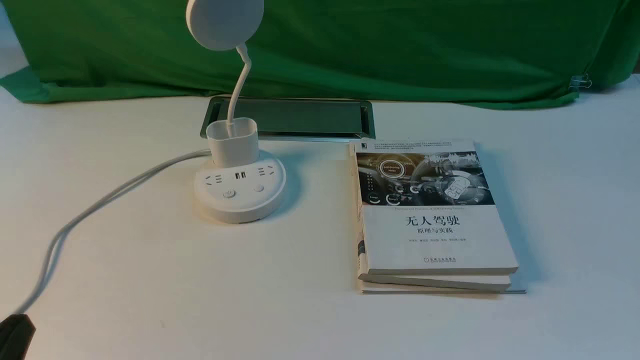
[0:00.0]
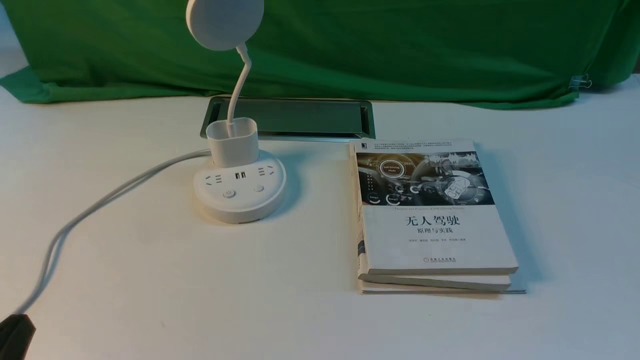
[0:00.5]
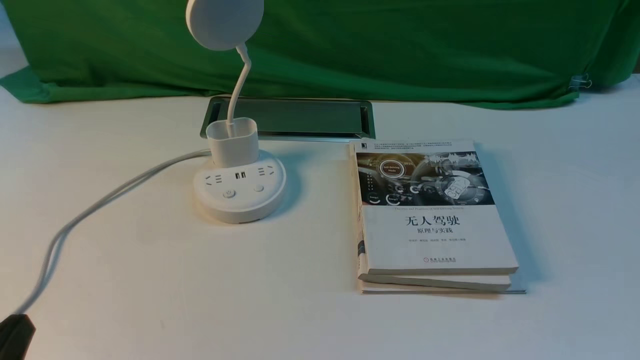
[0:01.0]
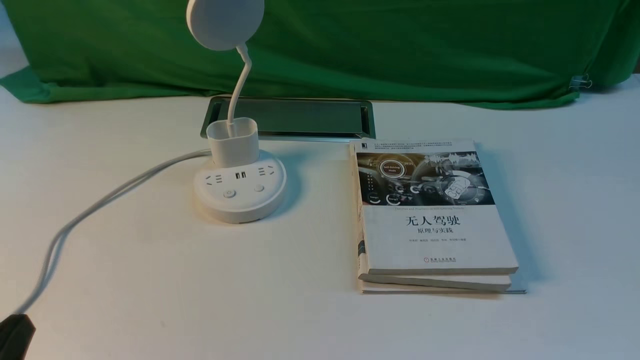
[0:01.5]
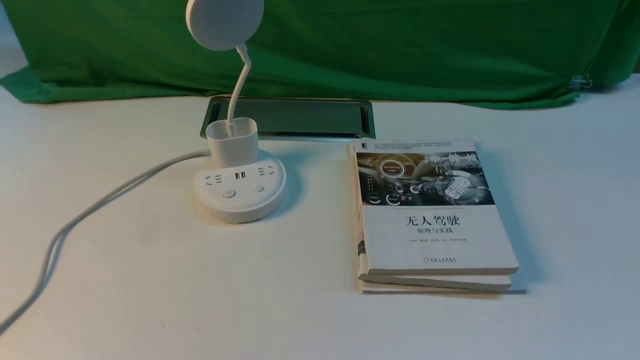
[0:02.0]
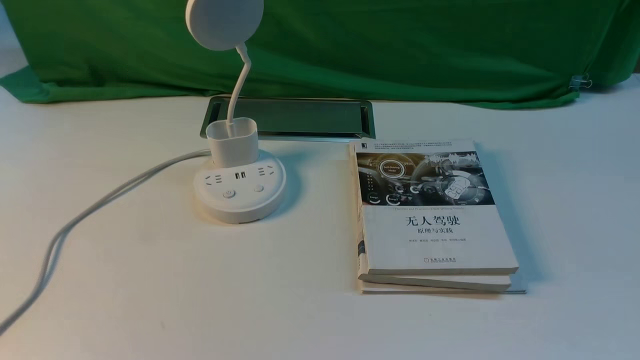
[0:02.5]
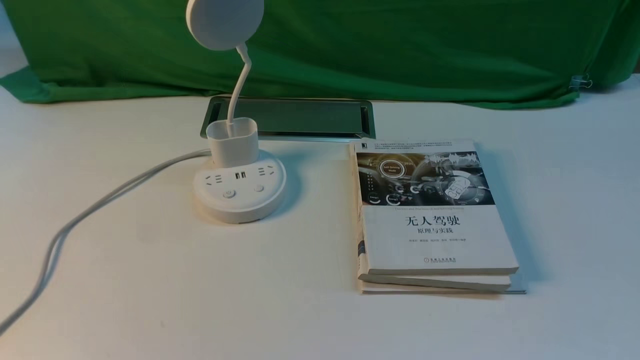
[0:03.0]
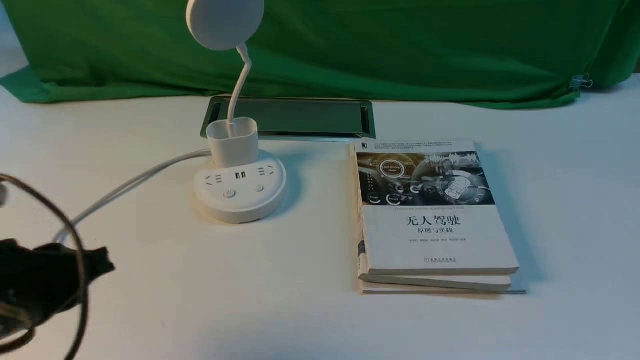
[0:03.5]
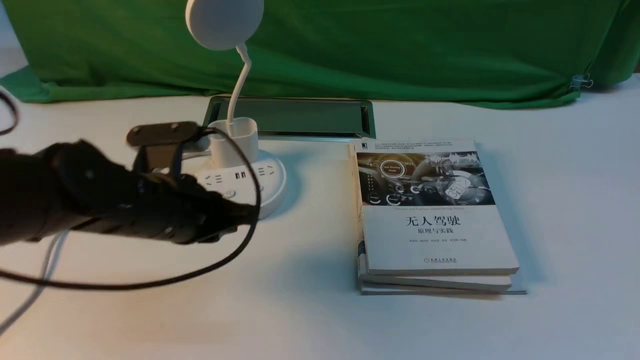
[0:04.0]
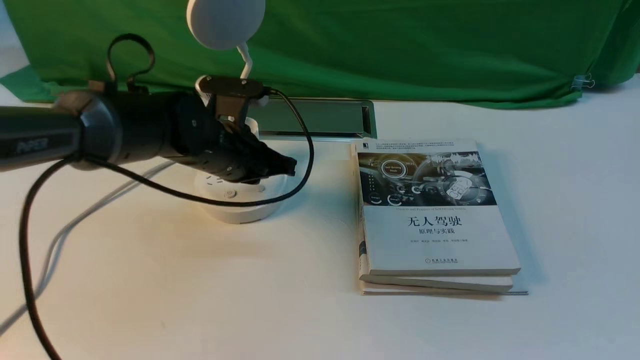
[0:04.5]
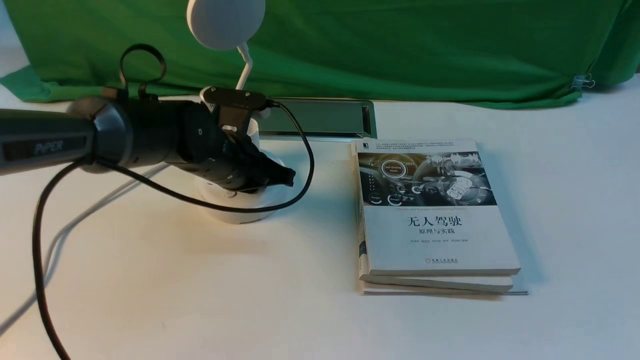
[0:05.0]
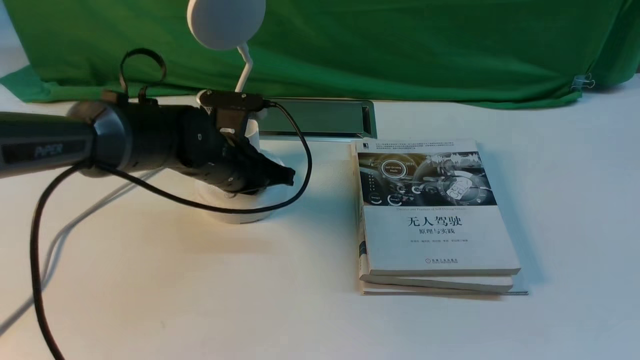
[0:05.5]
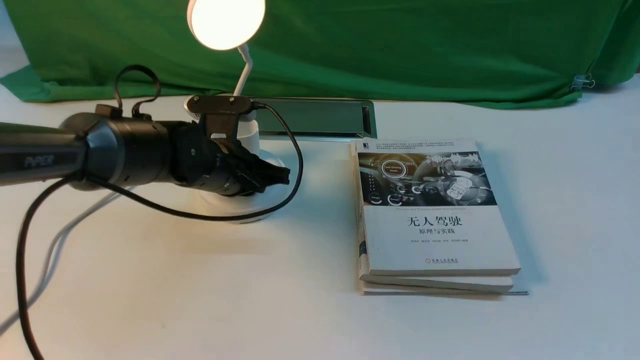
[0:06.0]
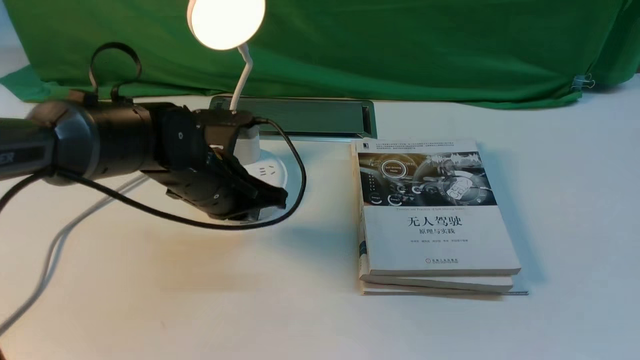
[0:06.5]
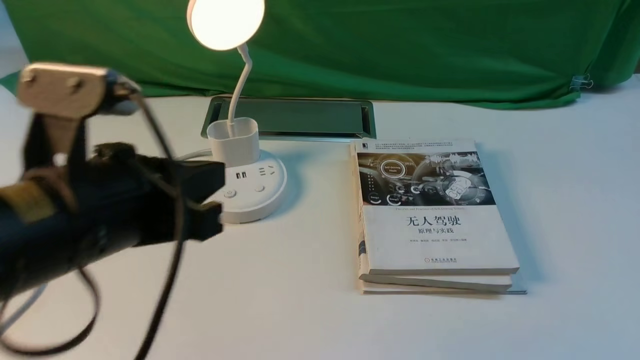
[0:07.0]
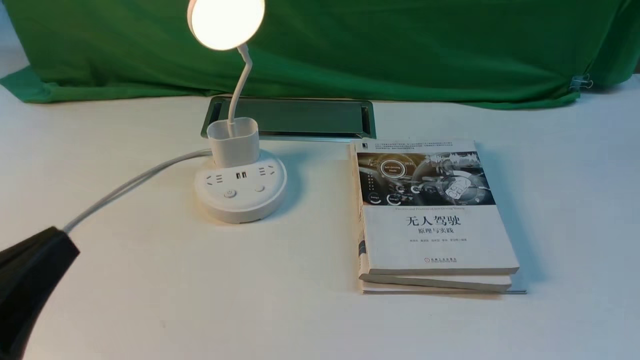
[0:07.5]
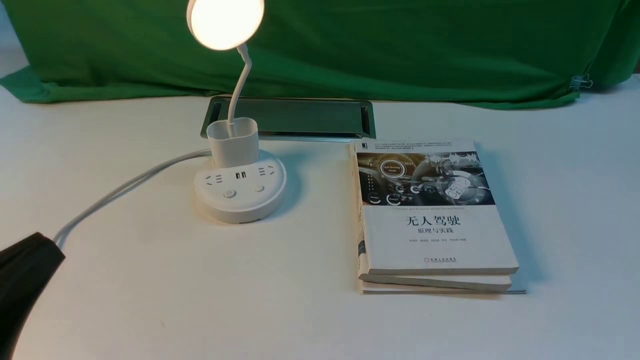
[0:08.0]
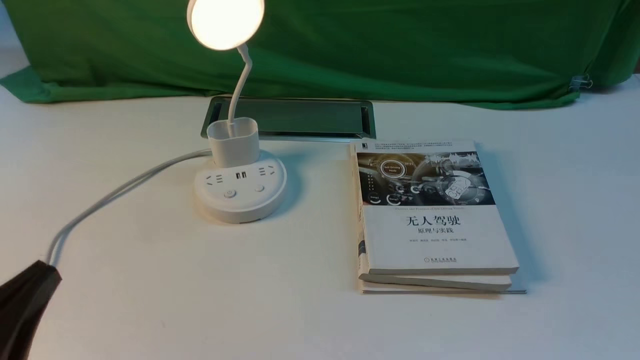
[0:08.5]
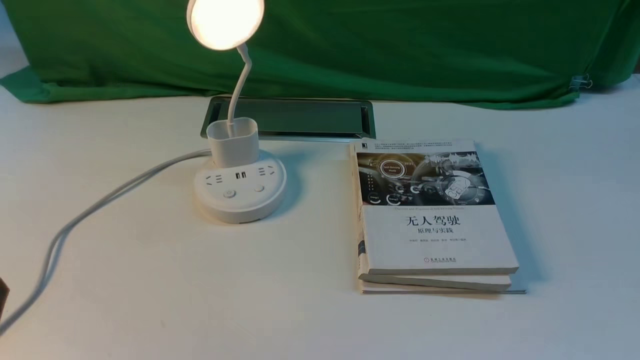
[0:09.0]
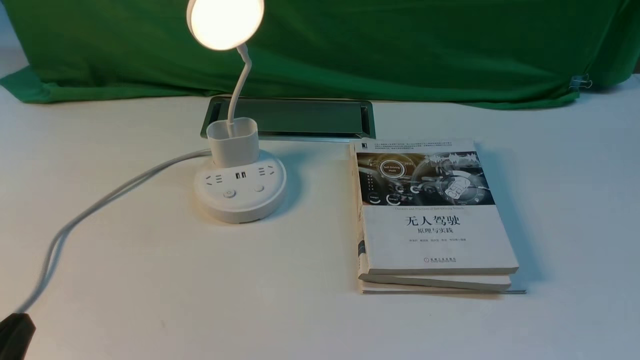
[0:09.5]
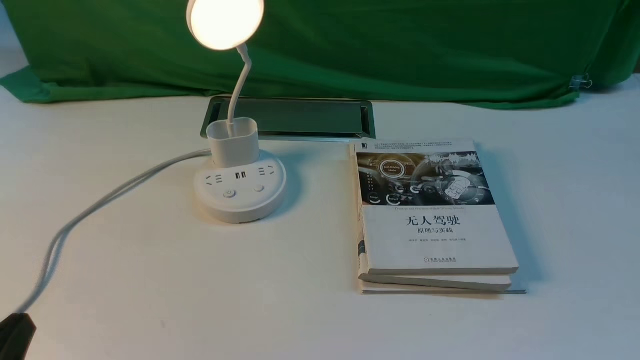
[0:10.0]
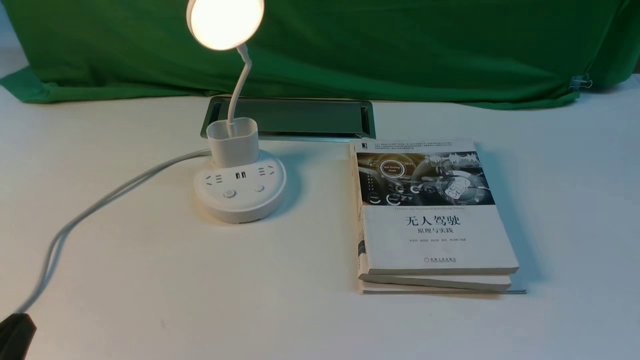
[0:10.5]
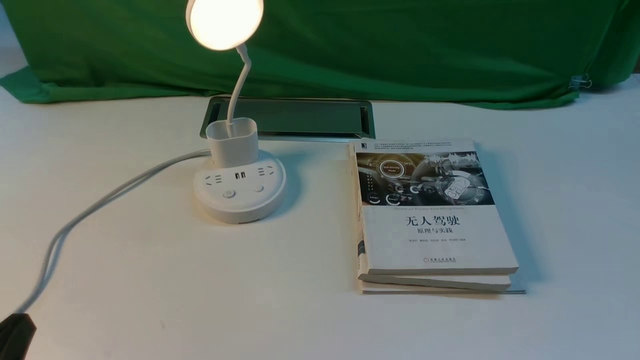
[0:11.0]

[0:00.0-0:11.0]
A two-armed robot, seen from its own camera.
Step, 0:00.0 to 0:06.0: use the left arm to press the button switch on the lamp holder.
0:02.0 to 0:03.5: The left gripper heads forward, covering roughly 10 cm.
0:03.5 to 0:05.5: The left gripper goes roughly 30 cm forward and to the right.
0:05.5 to 0:07.5: The left gripper shifts about 30 cm backward.
0:07.5 to 0:09.0: The left gripper shifts some 10 cm downward.
